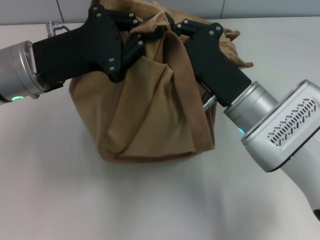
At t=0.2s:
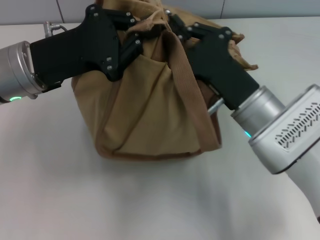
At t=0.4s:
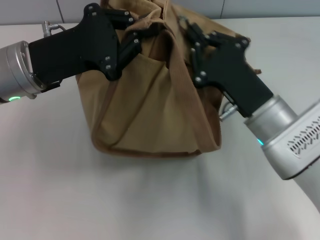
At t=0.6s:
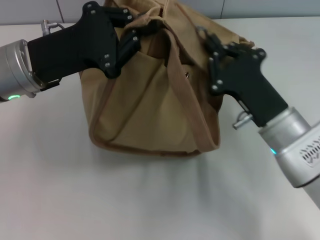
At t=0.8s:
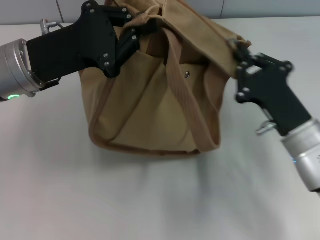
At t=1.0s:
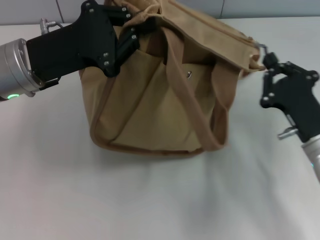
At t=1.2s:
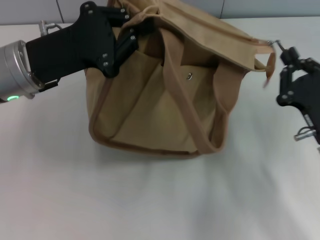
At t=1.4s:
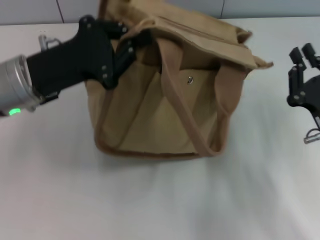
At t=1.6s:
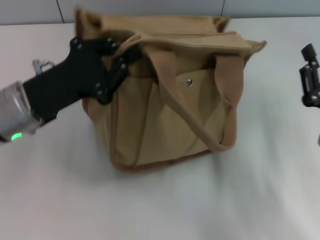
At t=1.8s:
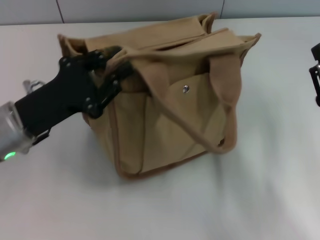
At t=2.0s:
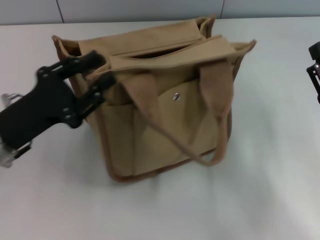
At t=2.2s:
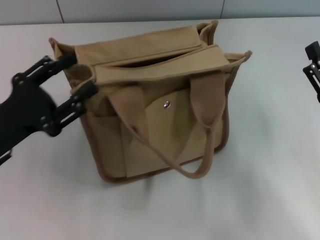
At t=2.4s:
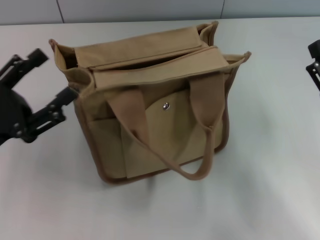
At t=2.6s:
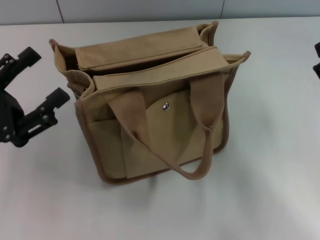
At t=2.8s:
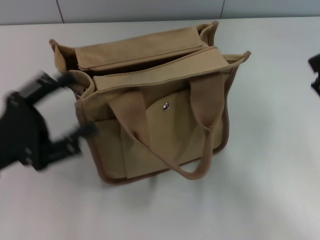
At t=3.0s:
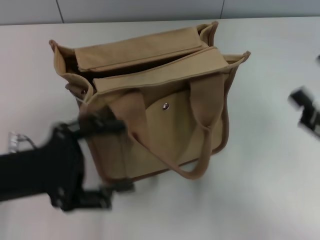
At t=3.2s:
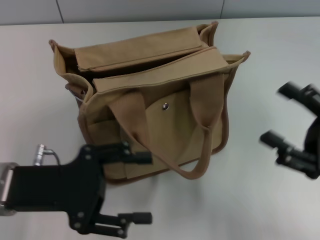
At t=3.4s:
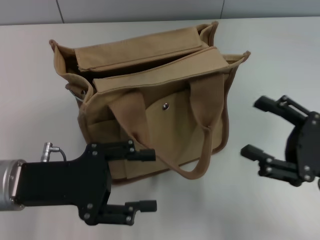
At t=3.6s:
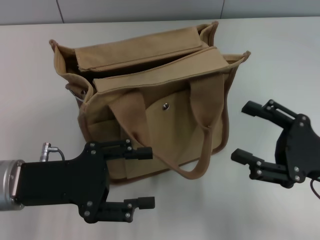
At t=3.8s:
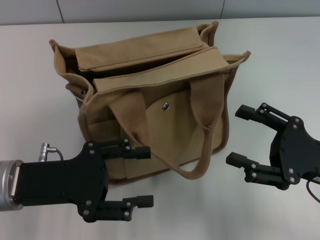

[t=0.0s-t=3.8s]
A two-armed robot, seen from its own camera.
Step, t=1.6s to t=2.2s: Grab the bag with your left hand.
t=0.0s to t=1.2s: The right gripper goes approximately 15 cm to the right and backward.
t=1.2s to t=2.6s: The right gripper changes place by roughly 5 cm, and opens its fingers. Meanwhile the left gripper goes about 15 cm backward, to the left and downward, and opens.
t=2.6s to t=3.8s: The left gripper heads to the right, covering approximately 5 cm.
